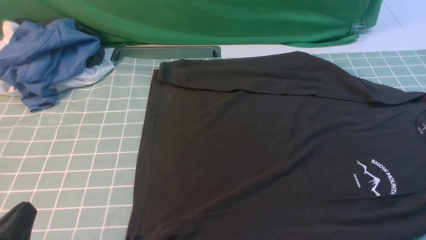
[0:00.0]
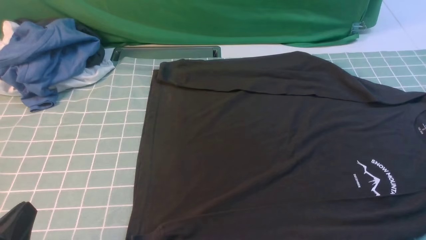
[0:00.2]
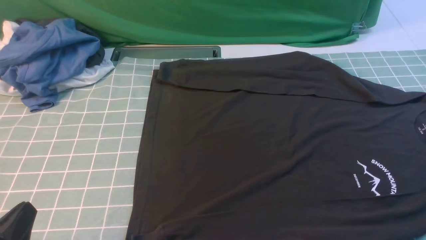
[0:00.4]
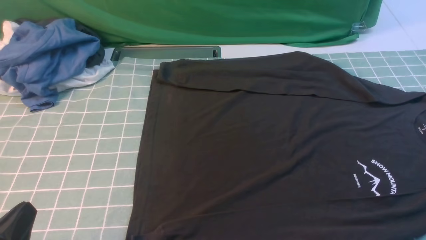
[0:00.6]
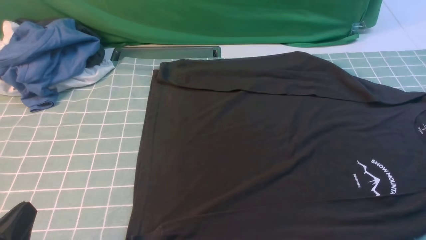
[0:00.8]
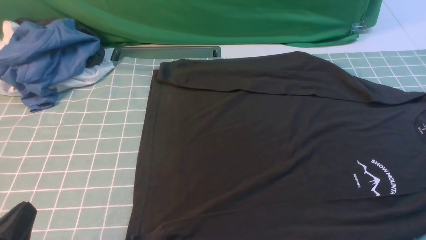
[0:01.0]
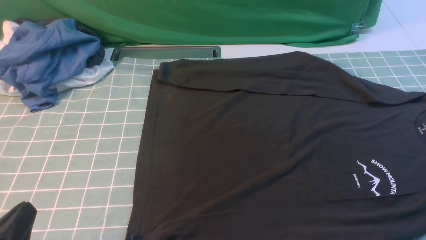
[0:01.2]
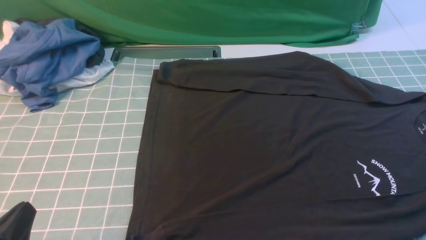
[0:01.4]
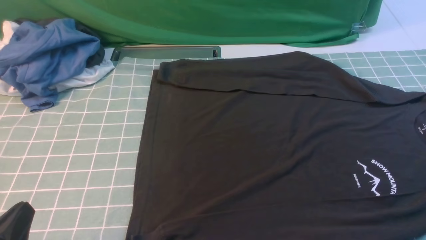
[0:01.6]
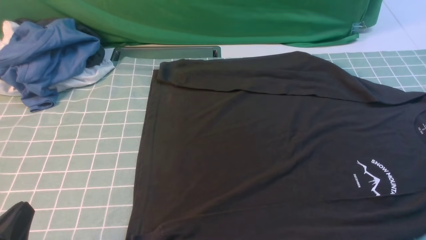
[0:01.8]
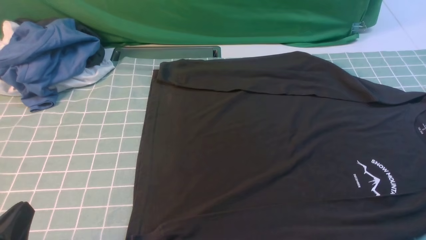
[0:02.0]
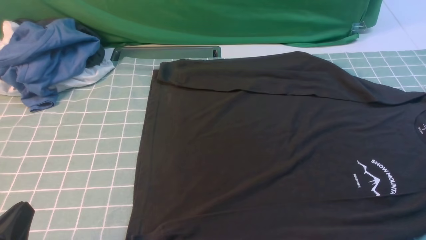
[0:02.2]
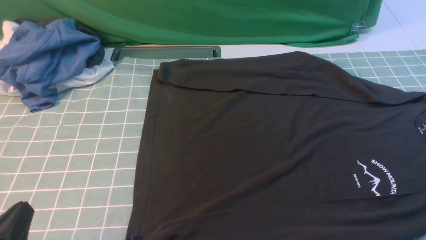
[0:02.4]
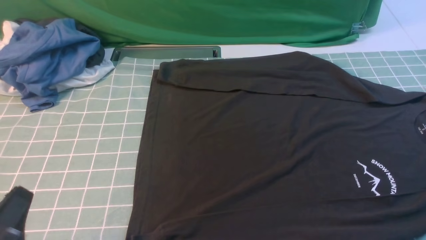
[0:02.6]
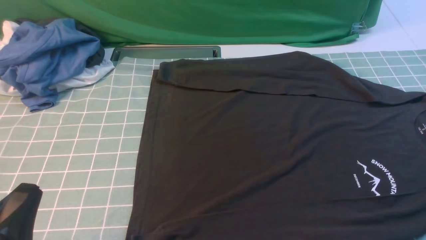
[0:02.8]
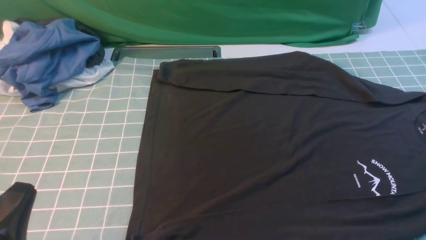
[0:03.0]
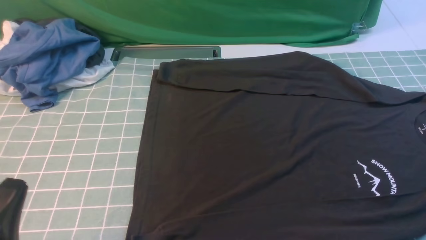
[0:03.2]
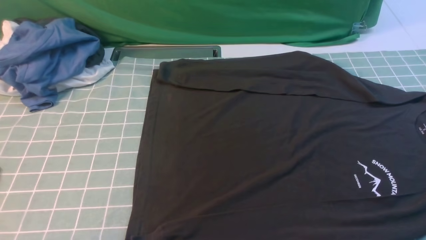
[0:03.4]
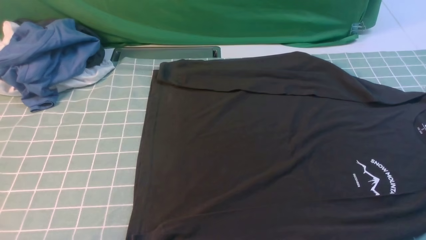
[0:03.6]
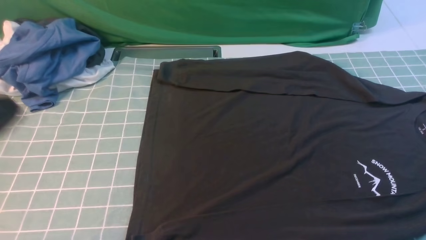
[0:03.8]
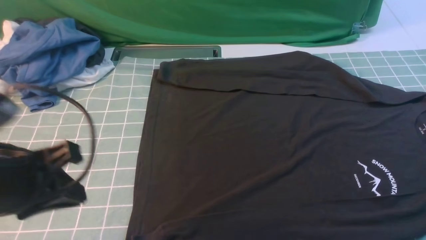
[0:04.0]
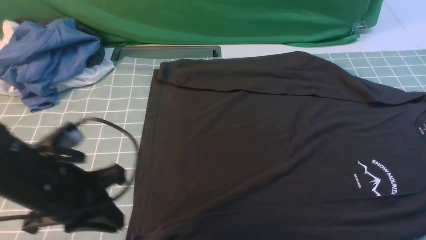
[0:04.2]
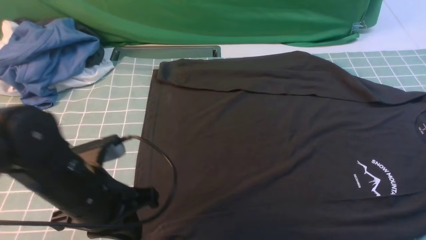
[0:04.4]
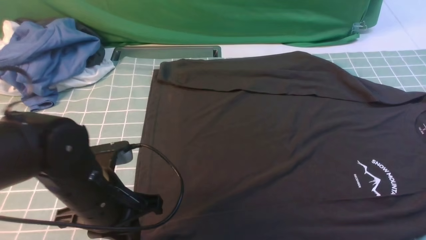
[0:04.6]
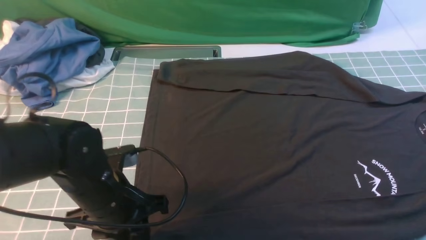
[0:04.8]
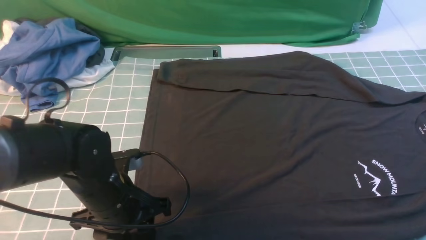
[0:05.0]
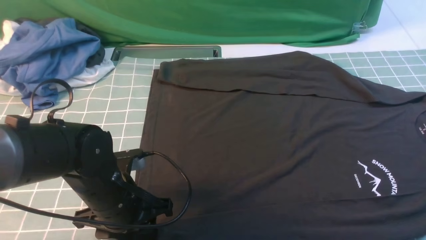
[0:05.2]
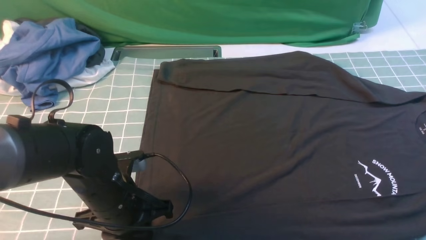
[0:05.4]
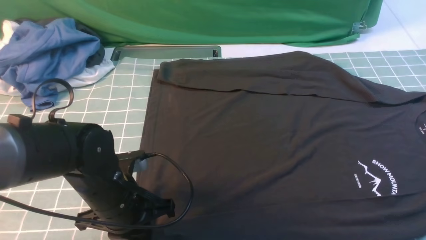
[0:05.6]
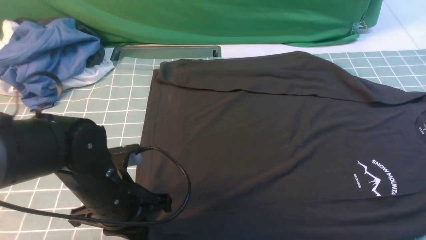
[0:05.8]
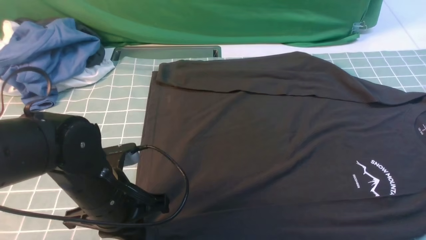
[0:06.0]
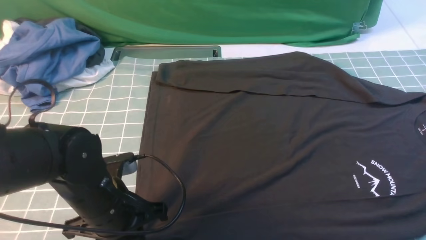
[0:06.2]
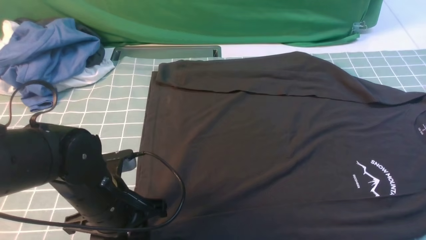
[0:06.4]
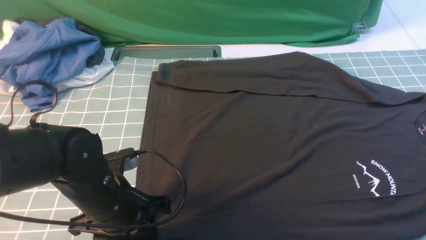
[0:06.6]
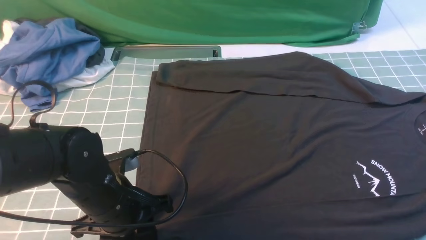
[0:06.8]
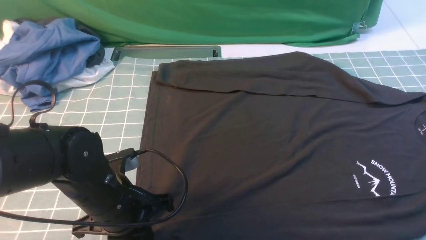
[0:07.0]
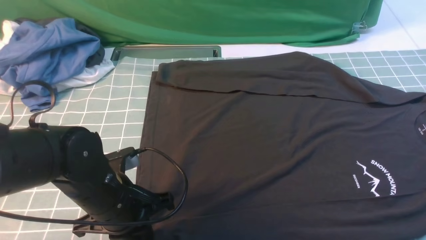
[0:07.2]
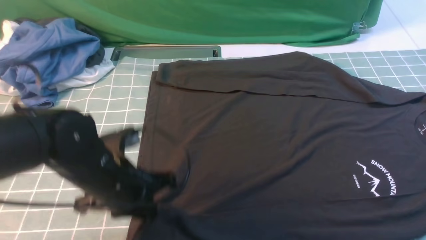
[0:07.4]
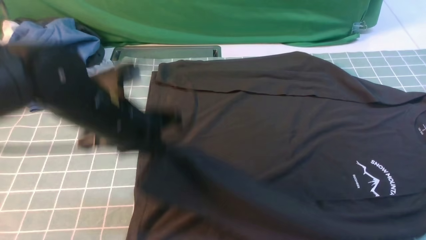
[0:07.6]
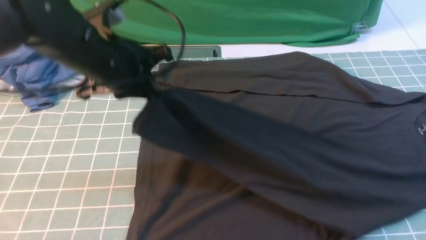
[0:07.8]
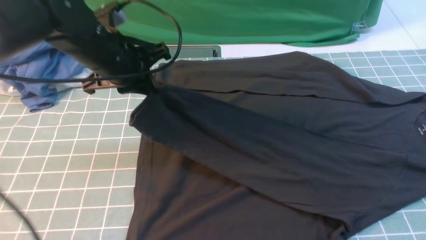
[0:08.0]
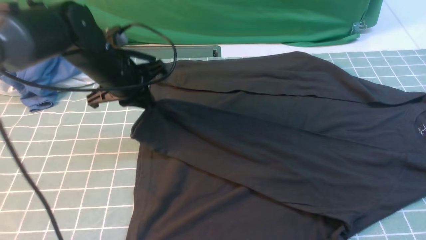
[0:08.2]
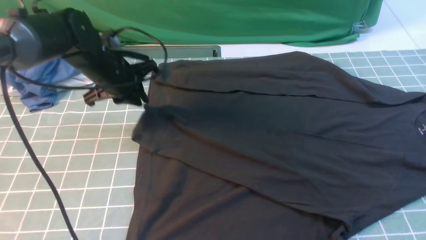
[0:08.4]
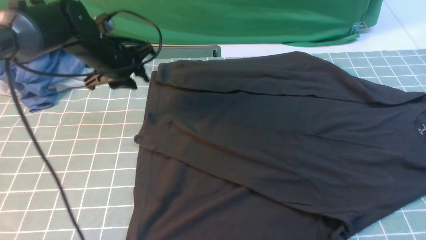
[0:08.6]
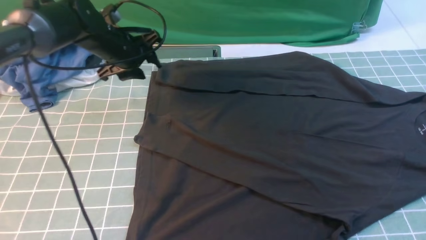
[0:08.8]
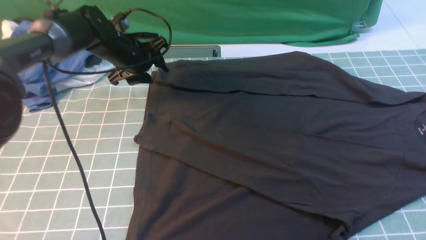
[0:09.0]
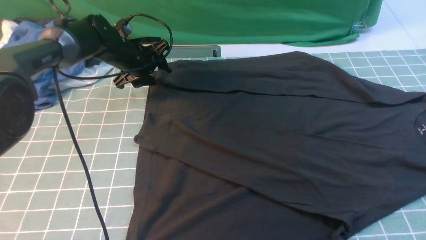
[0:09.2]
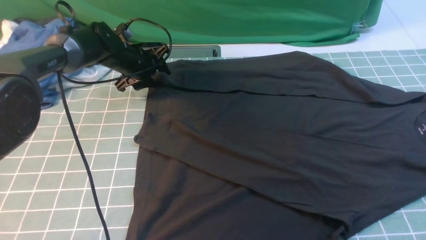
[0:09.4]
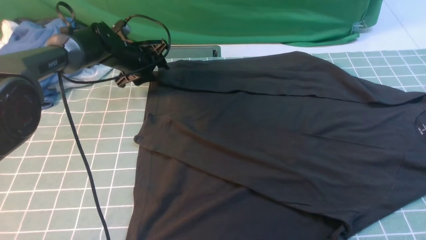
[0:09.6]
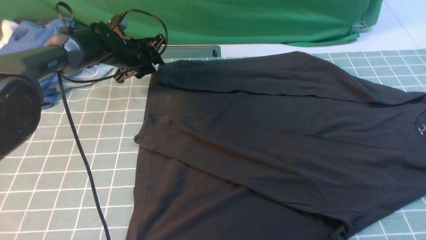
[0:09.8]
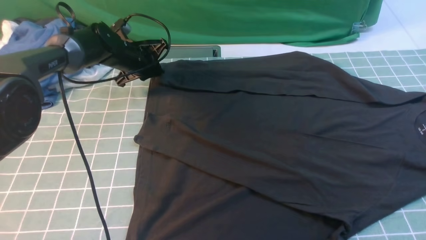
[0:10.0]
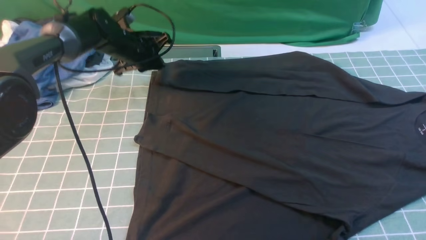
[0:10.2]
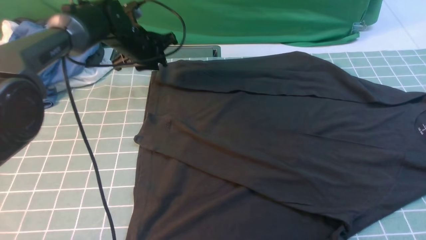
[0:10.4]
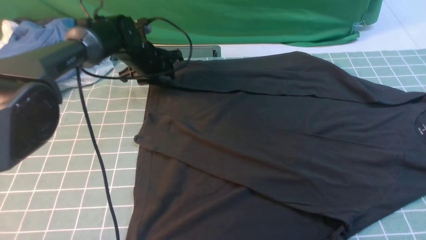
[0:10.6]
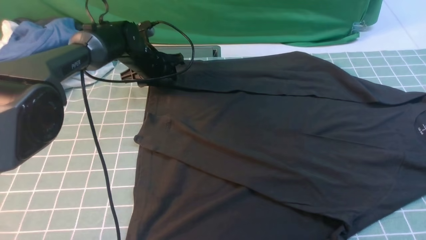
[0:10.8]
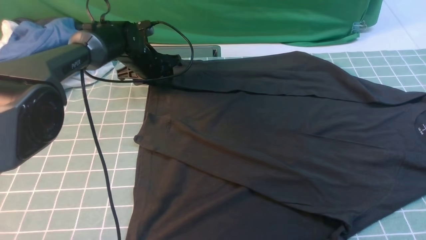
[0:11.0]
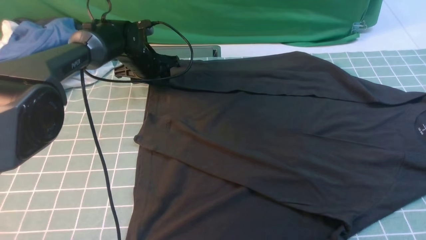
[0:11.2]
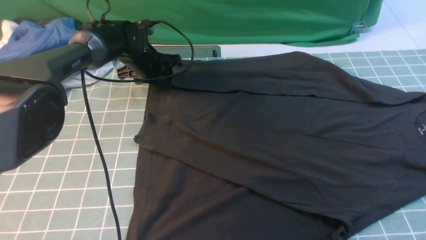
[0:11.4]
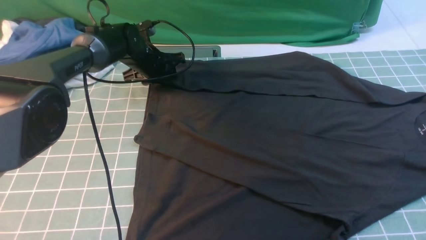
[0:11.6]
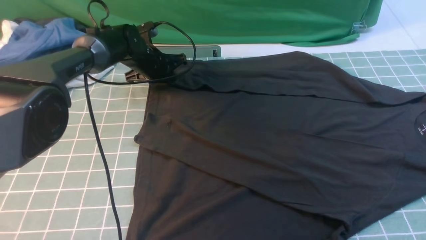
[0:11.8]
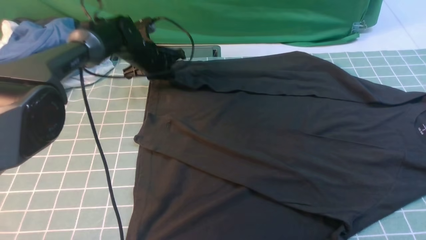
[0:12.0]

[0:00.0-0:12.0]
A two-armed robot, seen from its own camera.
Step, 0:00.0 to 0:07.2: use the left arm to clamp the cuff closest to it.
Step, 0:07.4 to 0:08.4: use the left arm to drag and place the cuff at the centered position on the left edge of the fabric.
Step, 0:08.6 to 0:11.8: use the left arm to clamp the cuff farthest from it.
0:00.0 to 0:01.6: Neither gripper changes place.
0:03.0 to 0:04.4: The left gripper travels forward and to the right by roughly 15 cm.
0:04.4 to 0:06.0: The left gripper opens and closes again.
0:06.0 to 0:07.6: The left gripper is displaced upward and forward by roughly 10 cm, and opens, then closes again.
0:07.6 to 0:09.0: The left gripper moves forward, approximately 20 cm, and opens up.
0:09.0 to 0:10.4: The left gripper closes up.
0:10.4 to 0:12.0: The left gripper closes its fingers.

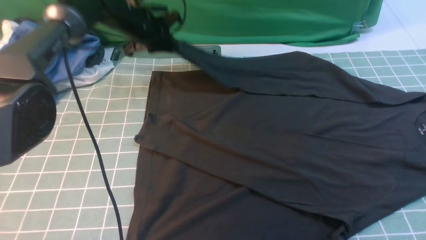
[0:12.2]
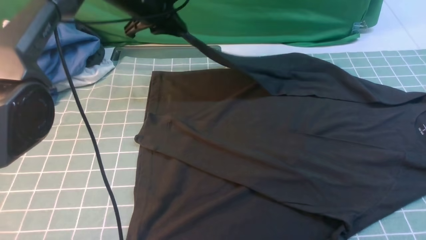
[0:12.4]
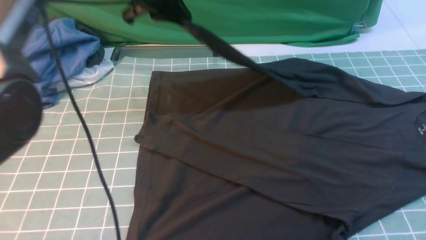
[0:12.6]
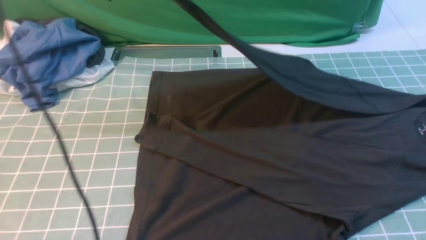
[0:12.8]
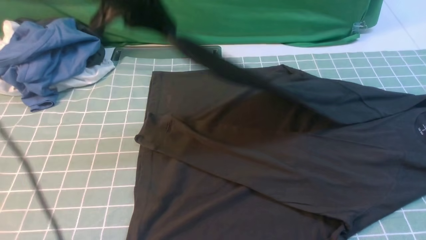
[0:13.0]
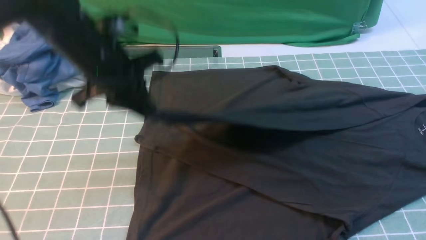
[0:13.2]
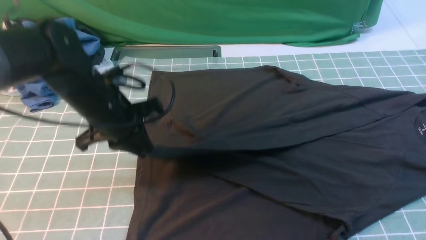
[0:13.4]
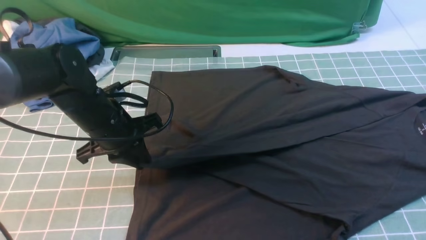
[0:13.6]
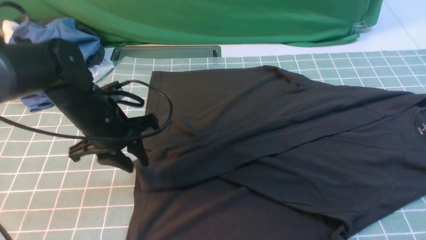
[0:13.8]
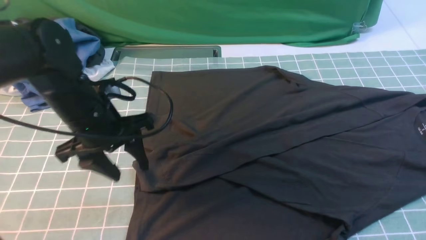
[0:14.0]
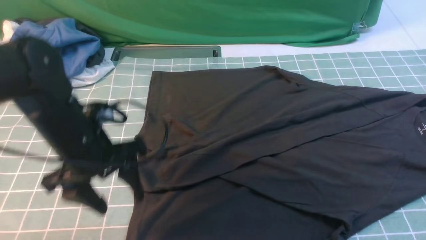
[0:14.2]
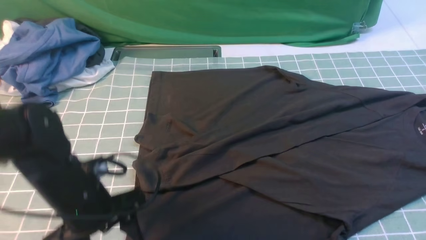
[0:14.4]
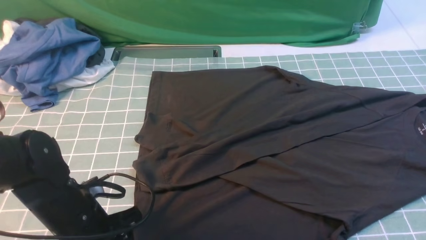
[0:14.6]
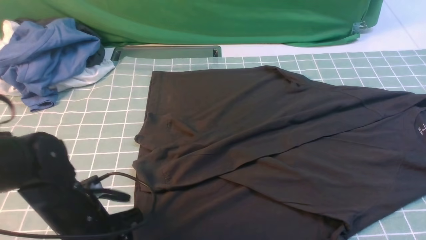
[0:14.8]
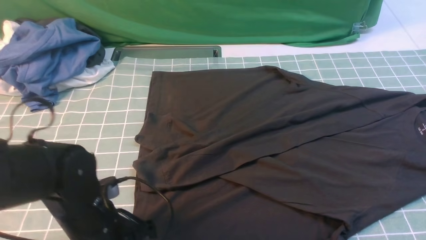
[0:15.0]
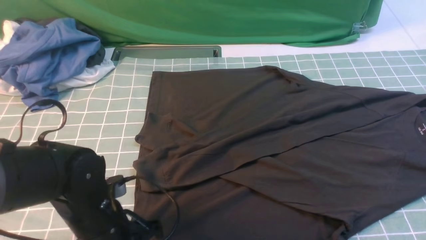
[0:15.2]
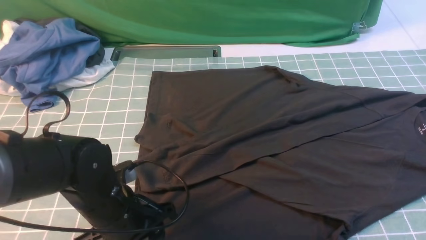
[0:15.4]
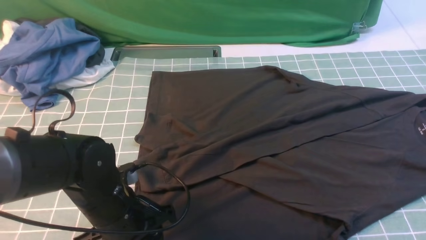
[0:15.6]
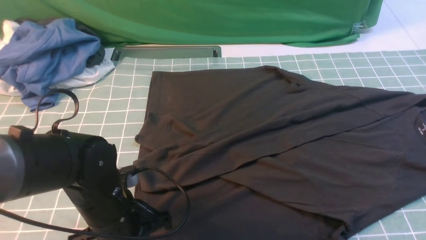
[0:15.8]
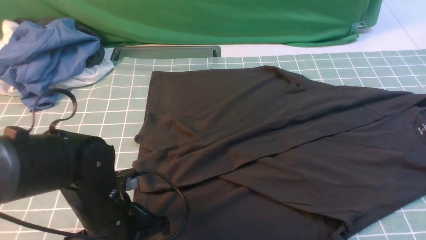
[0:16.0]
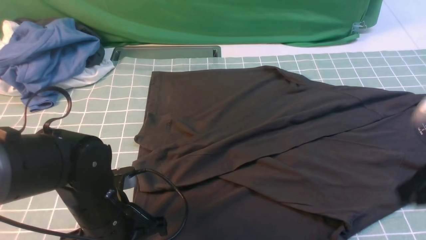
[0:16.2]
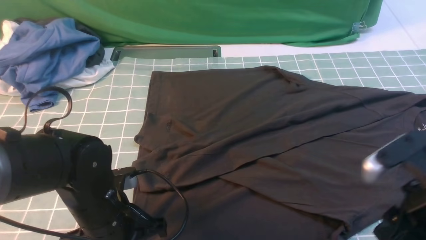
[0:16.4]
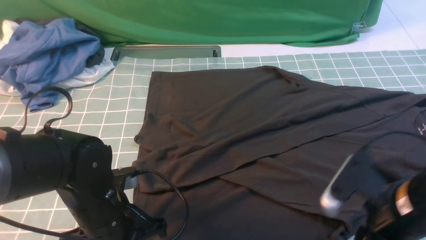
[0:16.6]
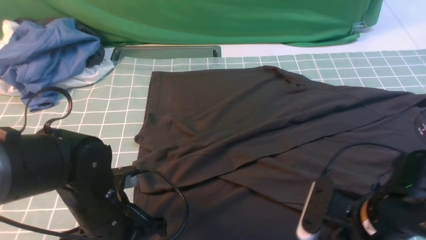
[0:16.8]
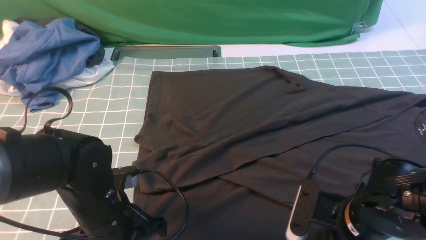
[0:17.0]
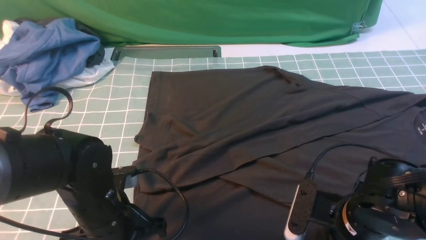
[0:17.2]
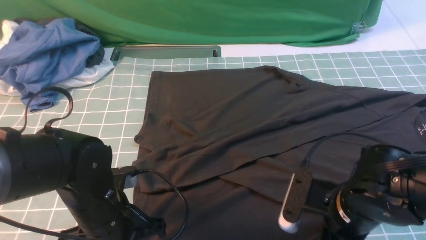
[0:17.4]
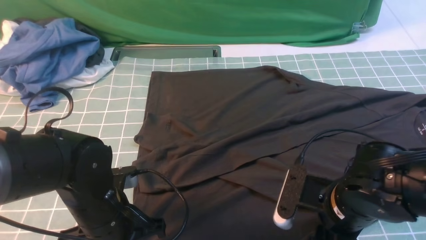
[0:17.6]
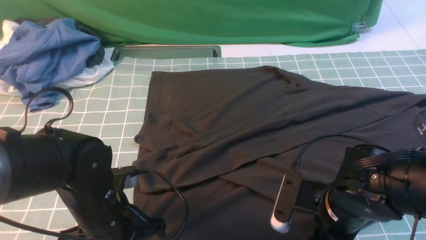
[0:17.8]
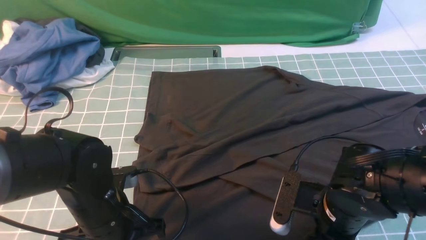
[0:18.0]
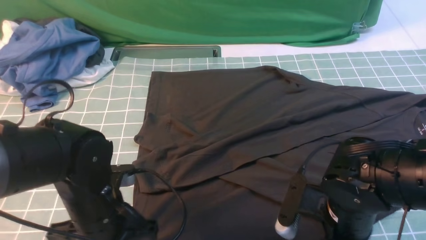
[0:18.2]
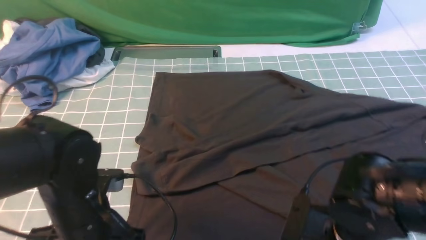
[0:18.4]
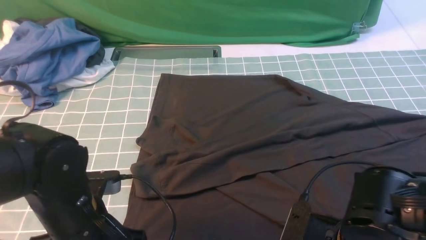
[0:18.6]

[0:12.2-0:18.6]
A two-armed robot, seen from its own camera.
Step, 0:12.2 to 0:14.0: use the left arm to drag and drop the cuff onto the cuff closest to the left arm.
0:12.2 to 0:13.8: The left gripper shifts some 20 cm backward, and opens up.
0:13.8 to 0:15.4: The left gripper moves backward and downward, some 15 cm, and opens.
0:15.4 to 0:17.0: The left gripper closes up. Meanwhile the right gripper goes about 25 cm downward and to the left, and opens up.
0:17.0 to 0:18.6: The right gripper moves about 5 cm, and closes up.
